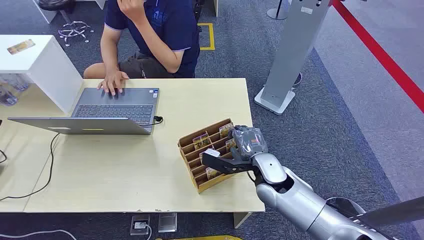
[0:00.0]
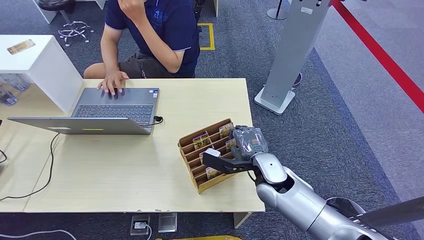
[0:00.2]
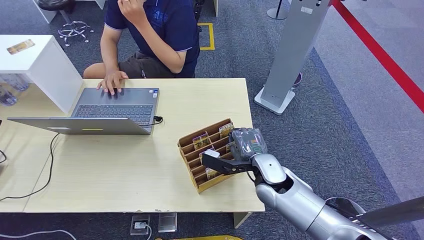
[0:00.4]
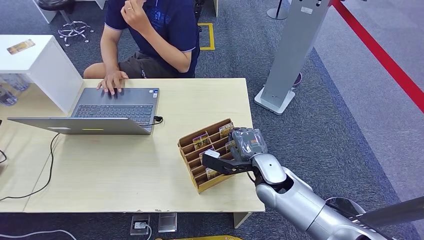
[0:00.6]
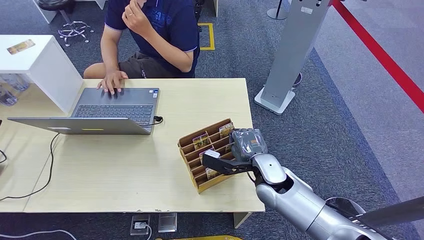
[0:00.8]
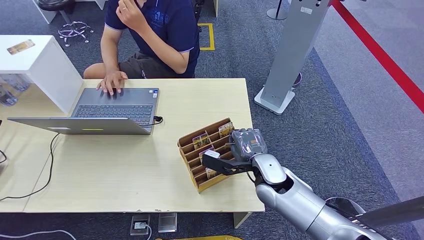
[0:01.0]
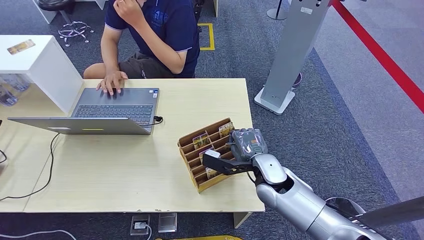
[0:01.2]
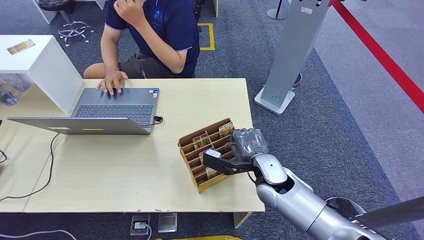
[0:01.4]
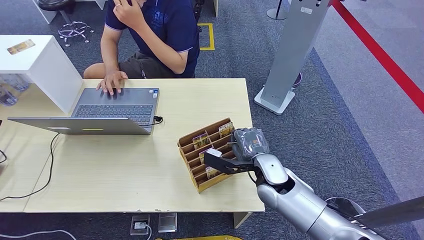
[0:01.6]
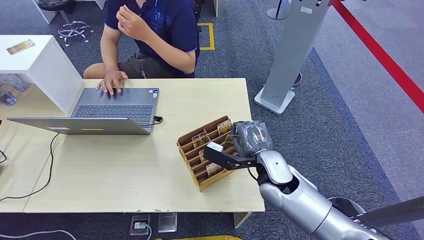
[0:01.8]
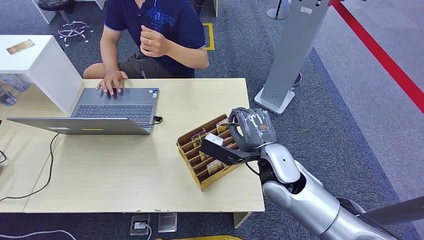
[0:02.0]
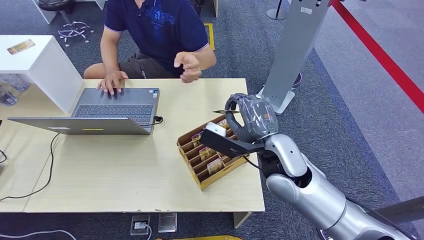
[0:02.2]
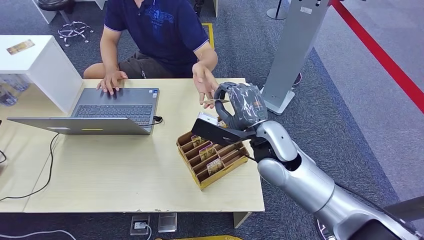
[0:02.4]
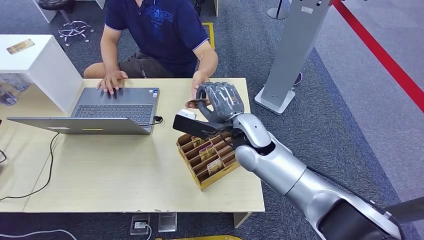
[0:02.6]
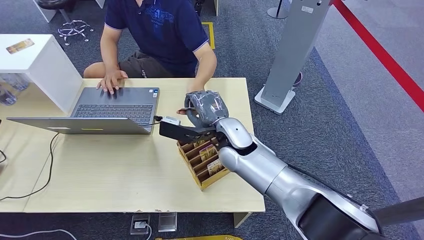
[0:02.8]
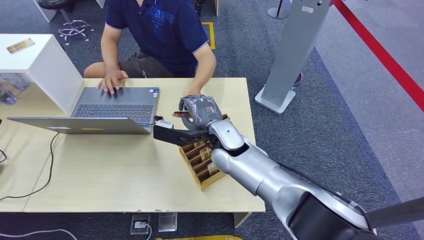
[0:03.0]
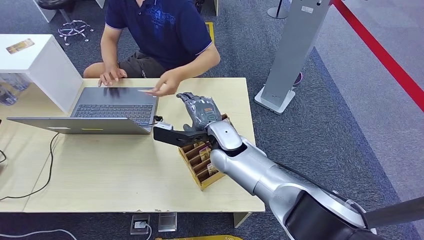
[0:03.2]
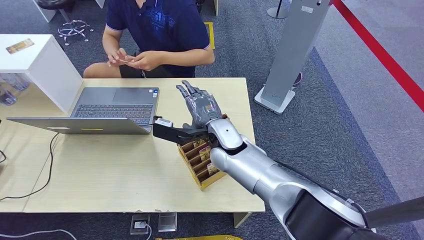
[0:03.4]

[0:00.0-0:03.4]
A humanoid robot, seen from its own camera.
Step, 0:00.0 to 0:02.0: Pick up the room card from the card holder.
Step, 0:02.4 to 0:03.4: Hand the room card to the target.
0:01.6 to 0:03.4: The right hand shifts some 15 cm to the left, upward and forward.
